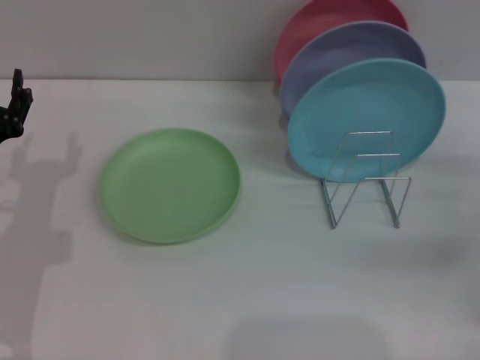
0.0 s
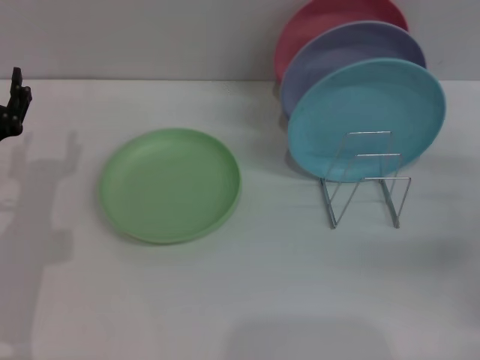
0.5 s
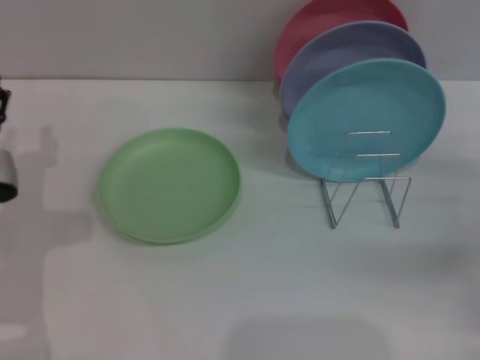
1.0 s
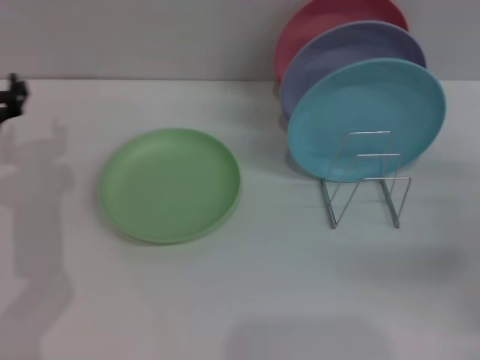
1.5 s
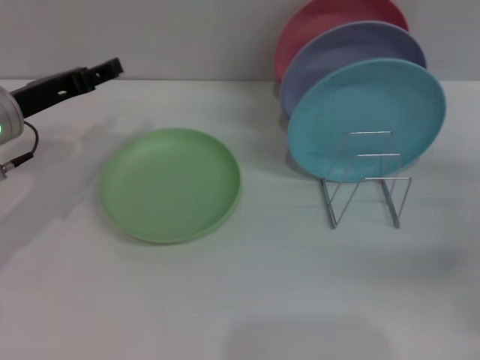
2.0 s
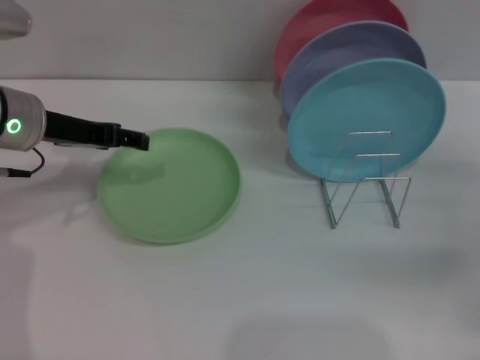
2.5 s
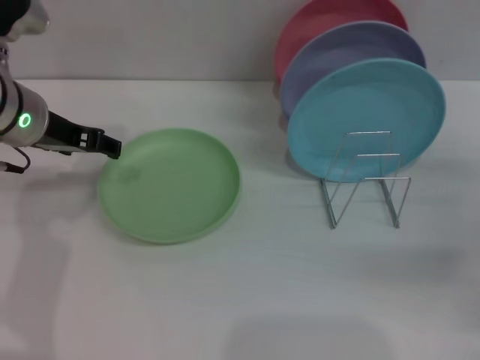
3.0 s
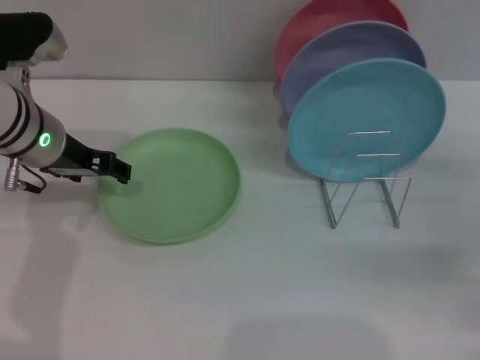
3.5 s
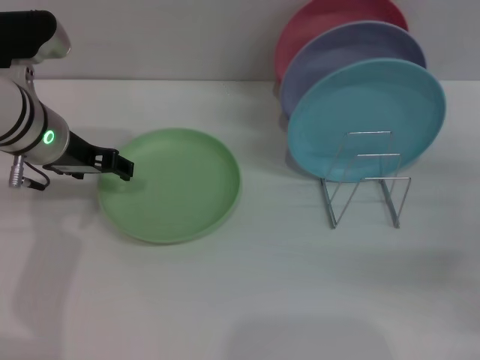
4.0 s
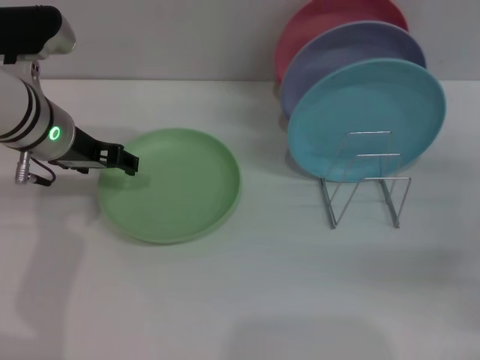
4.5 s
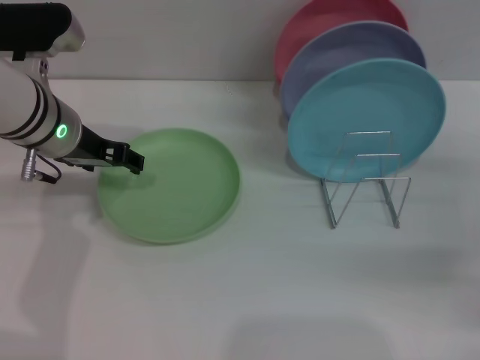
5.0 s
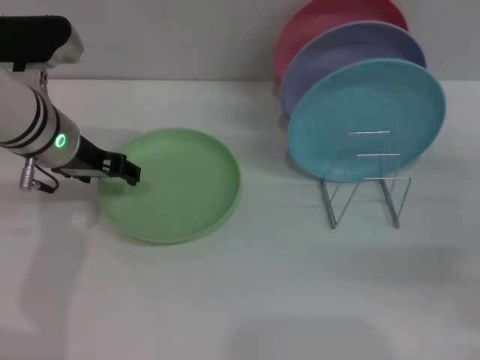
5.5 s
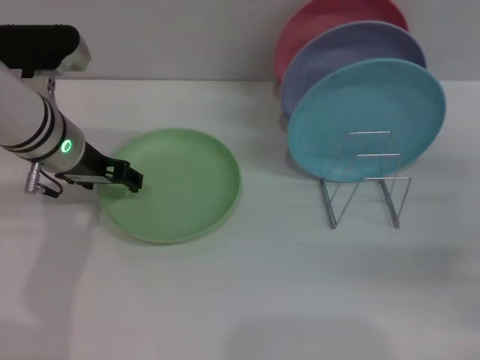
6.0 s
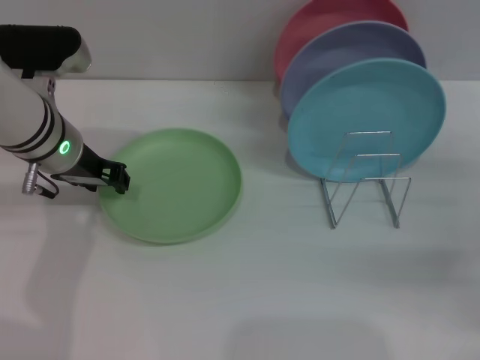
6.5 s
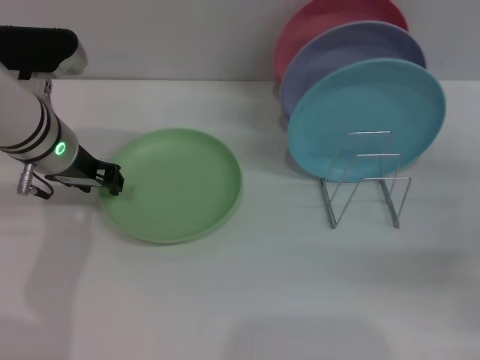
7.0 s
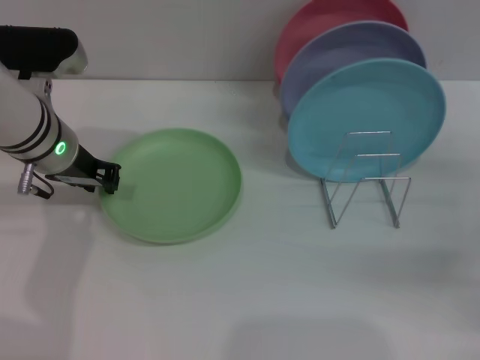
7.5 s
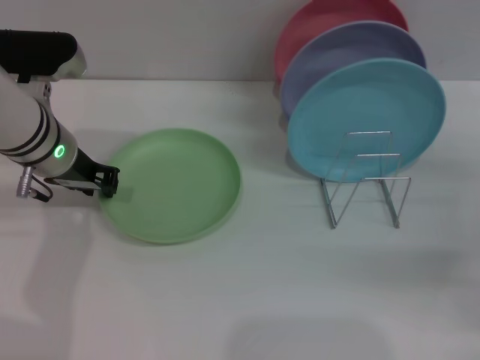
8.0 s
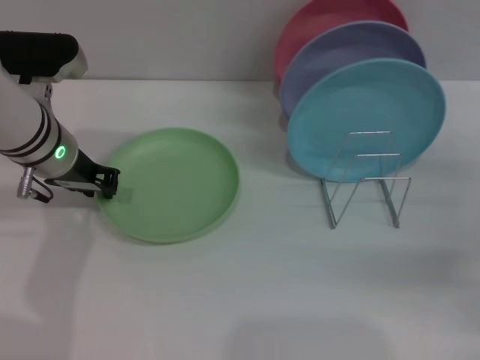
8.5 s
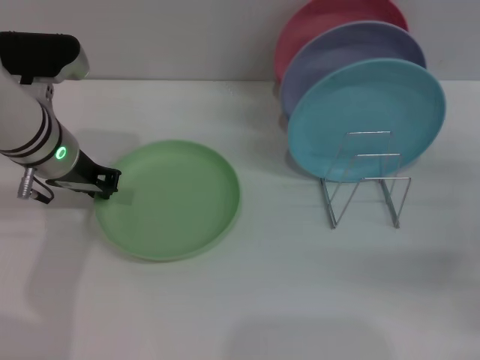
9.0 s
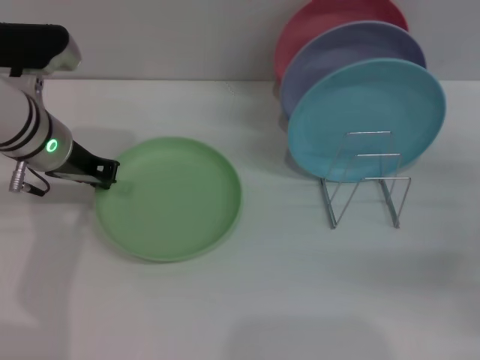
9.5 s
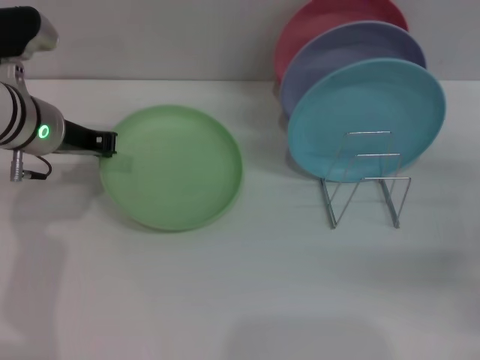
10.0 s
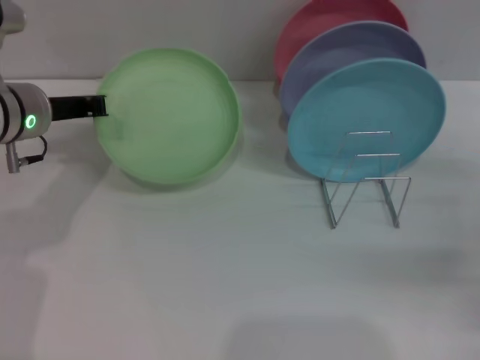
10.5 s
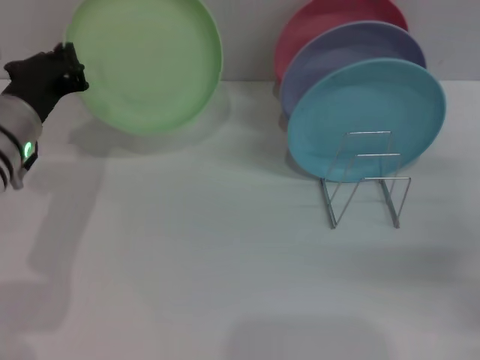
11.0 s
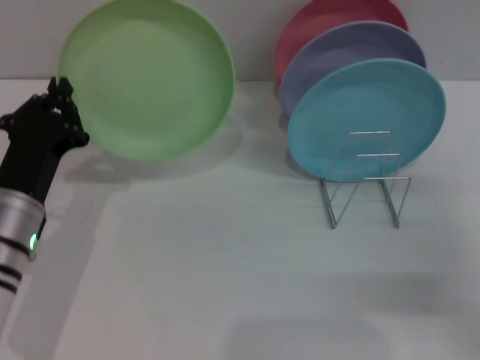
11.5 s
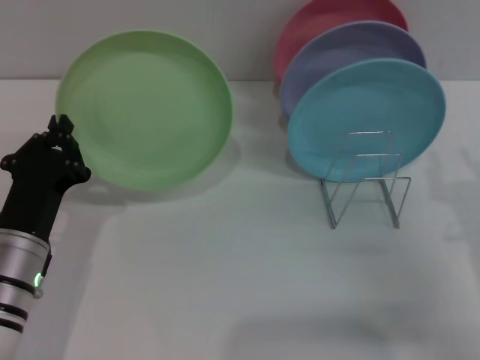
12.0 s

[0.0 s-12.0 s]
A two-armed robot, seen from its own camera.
Task of the whole recording: Grip the plate with one hand, pass it to the other, then set it on the shelf.
Step, 0.0 to 10.0 s: Pick up the plate with the left gripper.
0.0 to 2.0 s: The left gripper travels upward and forward by approximately 10 cm.
2.0 to 4.0 s: The left gripper moves to the right, about 5 cm.
4.0 to 6.0 s: The grippers make only small movements.
6.0 to 8.0 s: The left gripper closes.
8.0 to 10.0 s: The grippers move only a little.
10.0 to 12.0 s: The left gripper goes some 20 cm backward and downward. The right gripper is displaced to the left by some 10 cm.

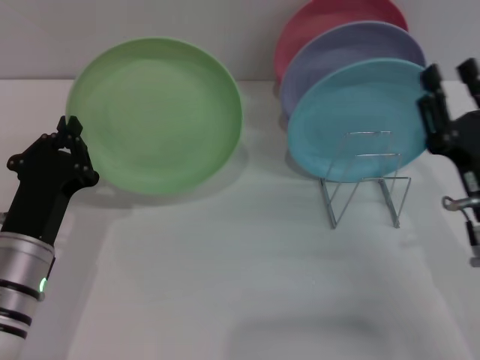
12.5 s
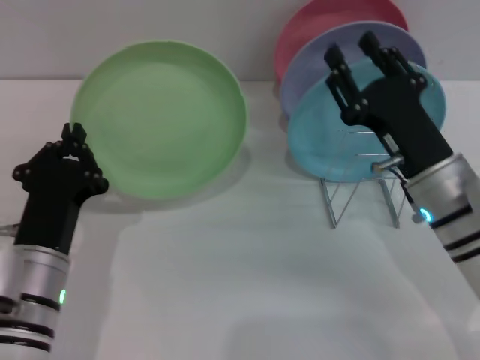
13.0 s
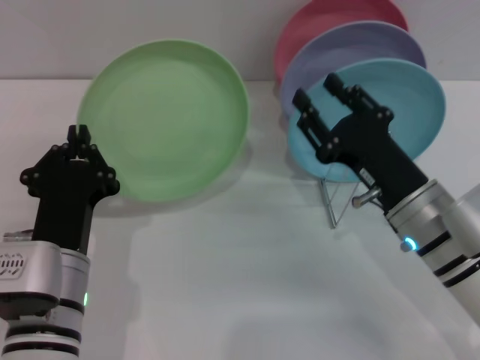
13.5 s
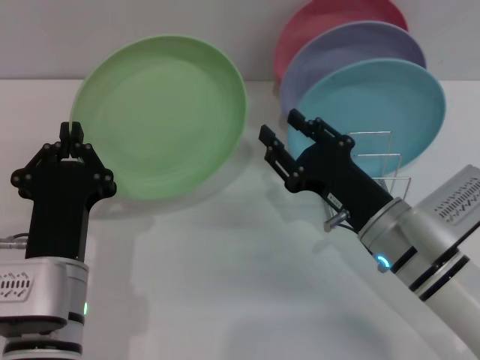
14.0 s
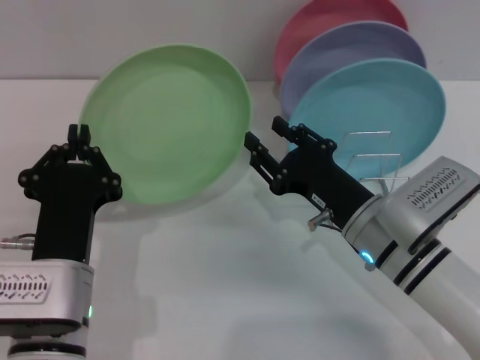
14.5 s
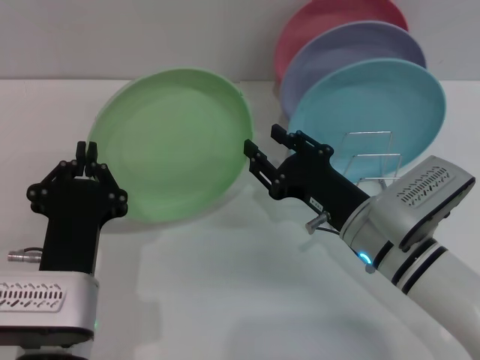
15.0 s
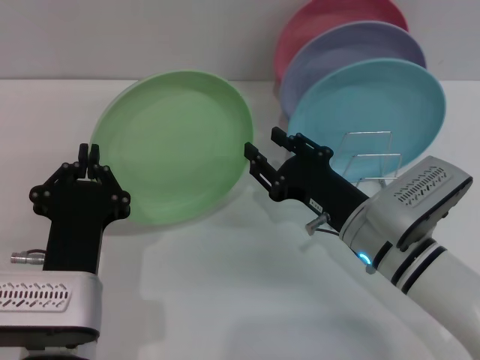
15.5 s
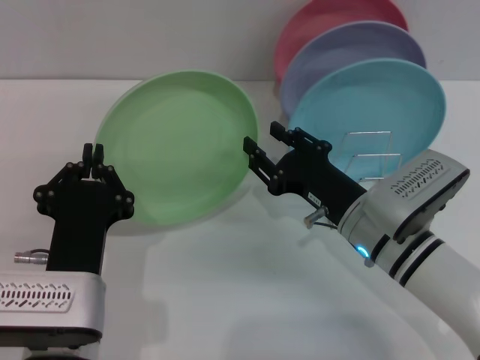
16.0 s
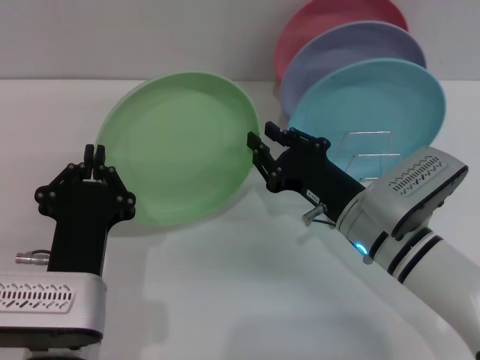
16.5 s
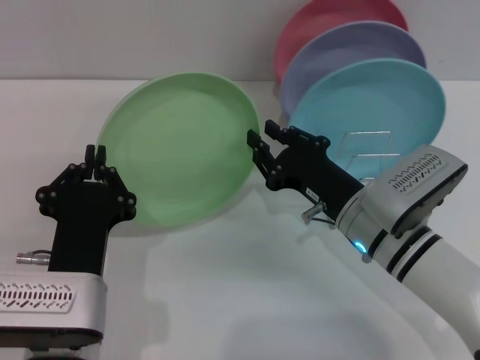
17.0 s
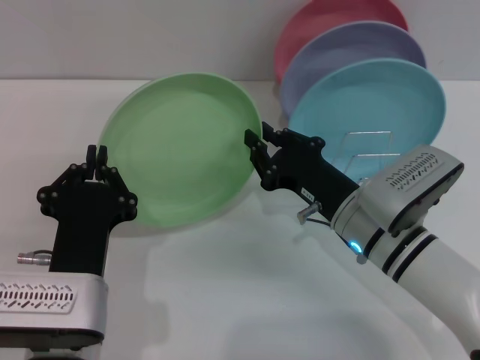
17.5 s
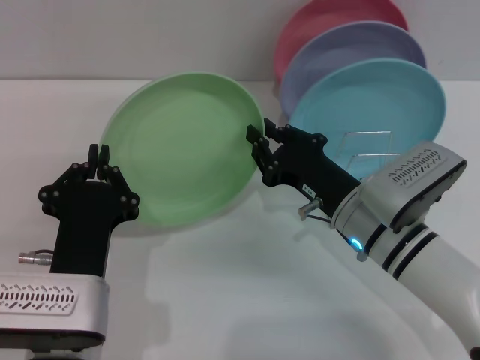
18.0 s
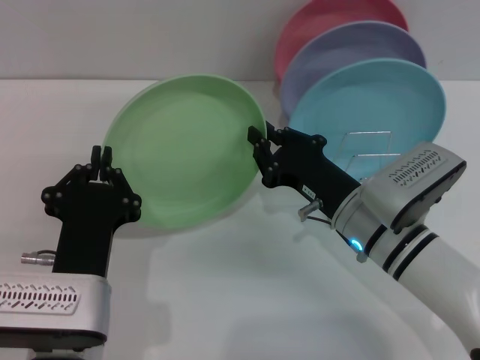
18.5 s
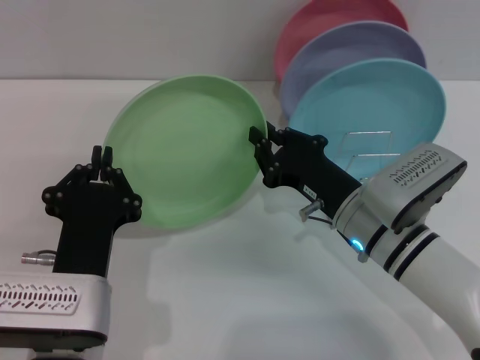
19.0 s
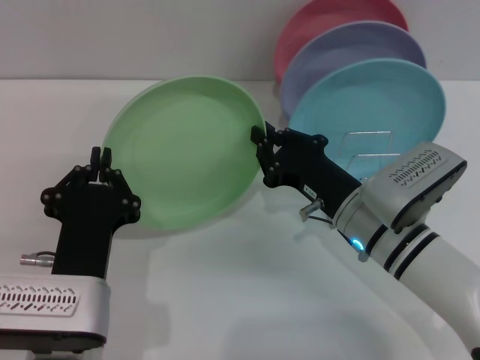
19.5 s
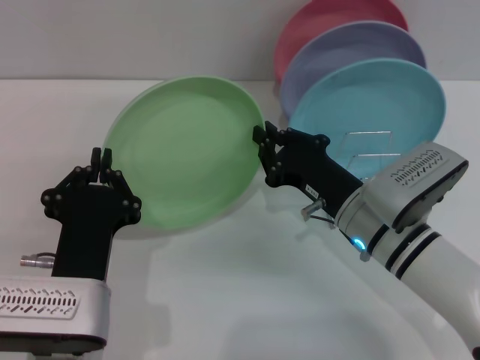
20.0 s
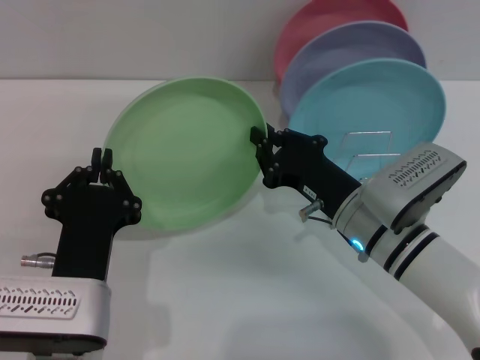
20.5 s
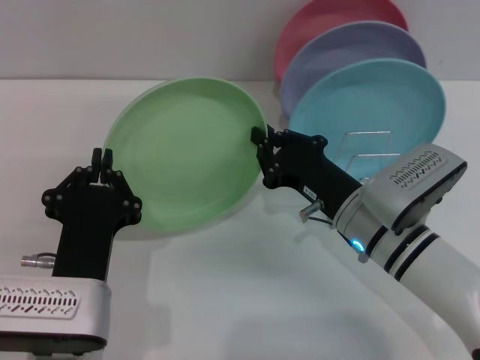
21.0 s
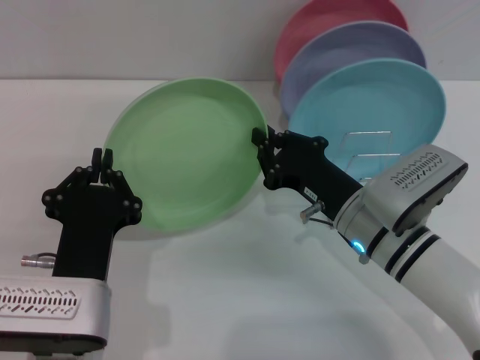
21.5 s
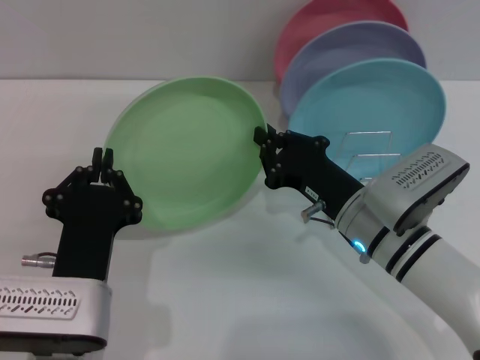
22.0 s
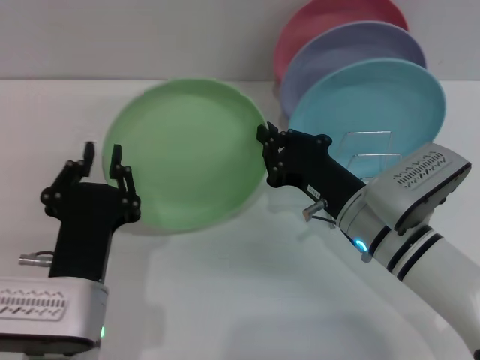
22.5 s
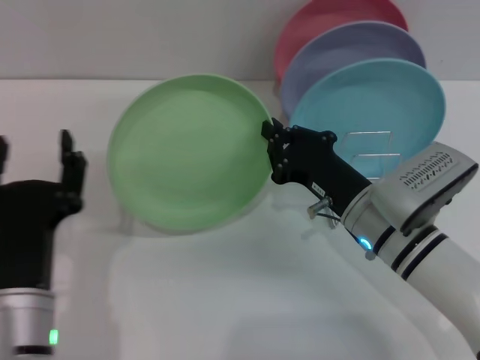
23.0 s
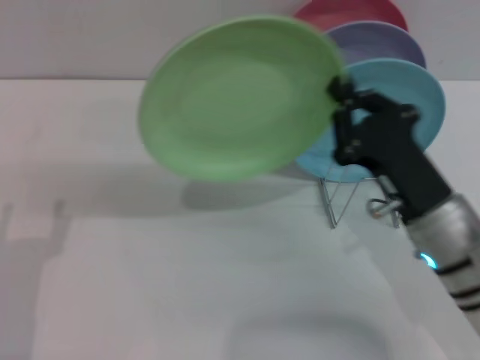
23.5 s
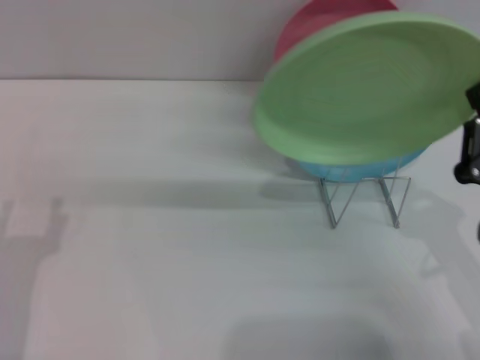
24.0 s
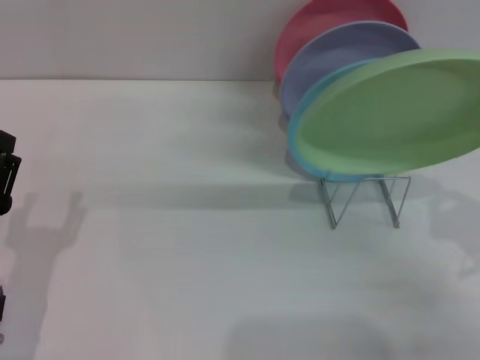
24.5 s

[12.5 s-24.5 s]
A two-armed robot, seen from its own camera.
Task of the whole recording: Grip the plate with one hand, pass it to the other, then set it on the shelf.
Step, 12.5 to 22.5 s: Pass the plate from the left gripper to the right gripper.
12.5 to 14.5 s: The right gripper is displaced to the left by roughly 10 cm. Meanwhile the left gripper heads to the right, covering roughly 5 cm.
14.5 to 16.5 s: The grippers make only small movements.
16.5 to 18.5 s: The right gripper closes.
18.5 to 22.5 s: Neither gripper changes place.
22.5 to 24.5 s: The right gripper moves to the right and backward, about 20 cm; the left gripper moves to the left, some 10 cm, and opens.

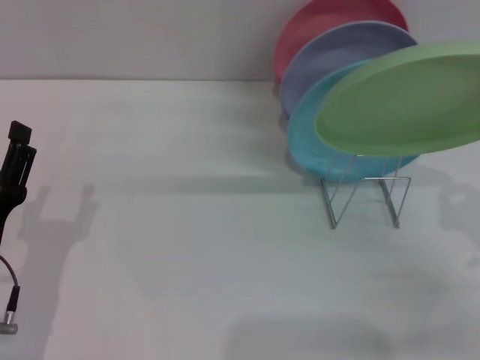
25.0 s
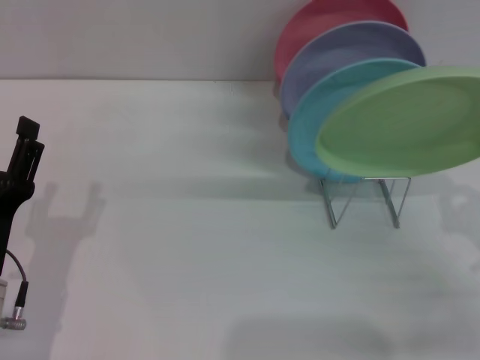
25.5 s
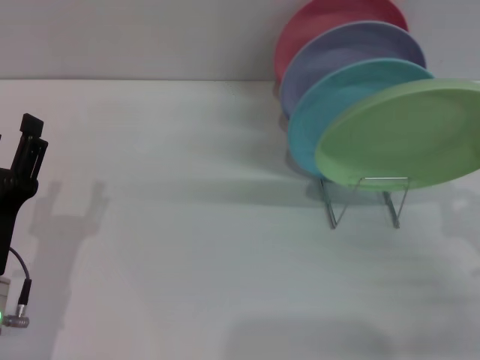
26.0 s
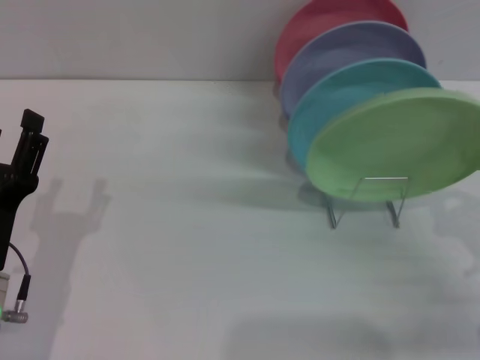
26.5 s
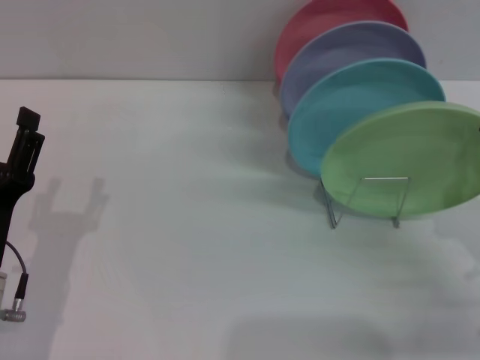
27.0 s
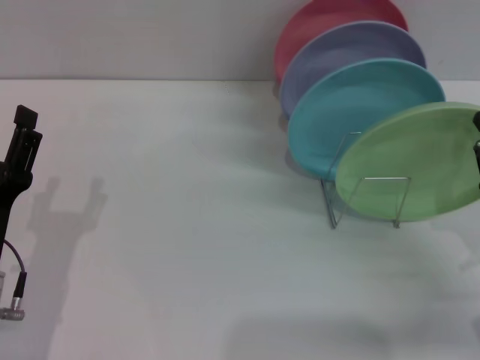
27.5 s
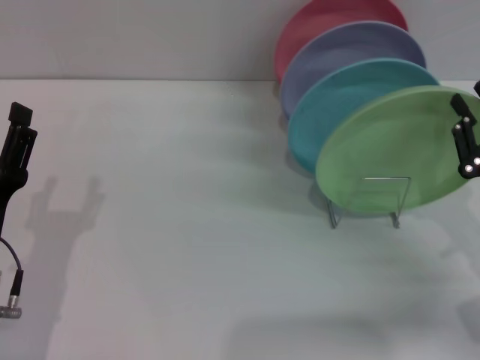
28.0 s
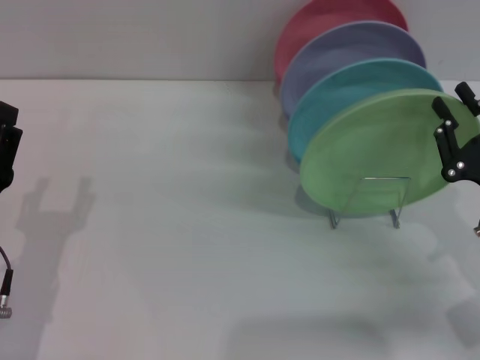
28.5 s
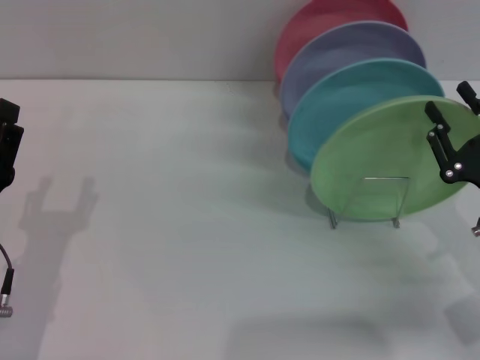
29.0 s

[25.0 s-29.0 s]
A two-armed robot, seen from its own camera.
Task of the whole recording: Grip the plate with one hand, pass it to the other, then set it on the shelf.
25.0 to 27.0 s: The grippers make only small movements.
27.0 to 29.0 s: The right gripper opens its fingers.
